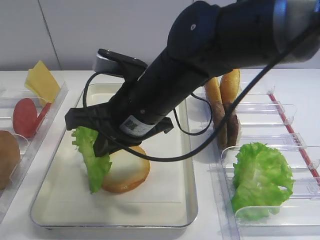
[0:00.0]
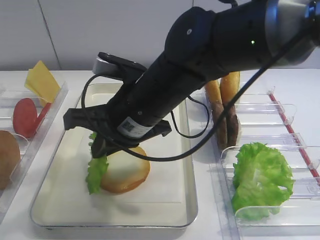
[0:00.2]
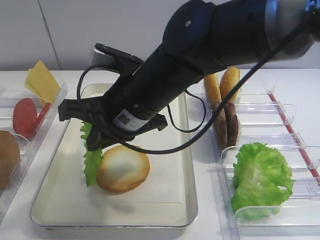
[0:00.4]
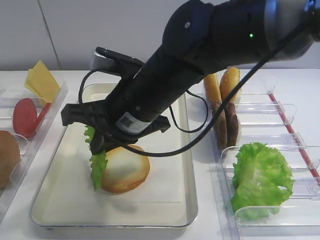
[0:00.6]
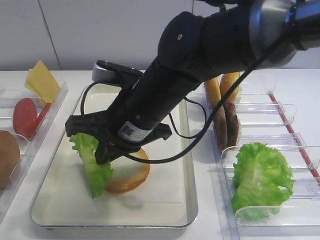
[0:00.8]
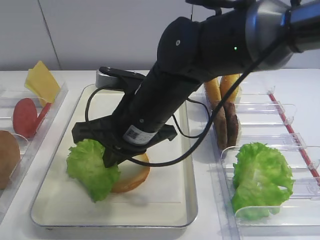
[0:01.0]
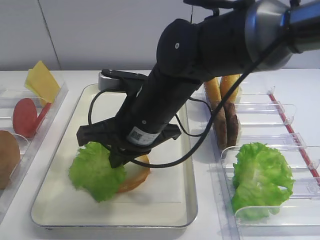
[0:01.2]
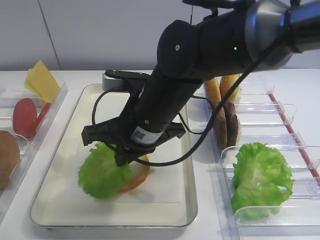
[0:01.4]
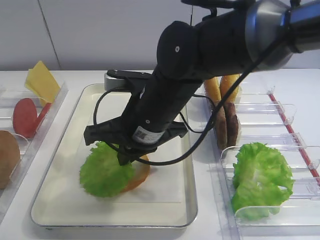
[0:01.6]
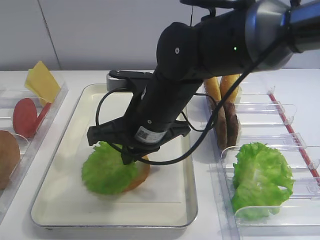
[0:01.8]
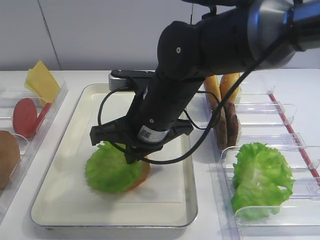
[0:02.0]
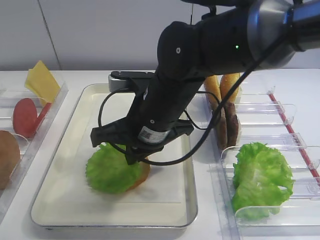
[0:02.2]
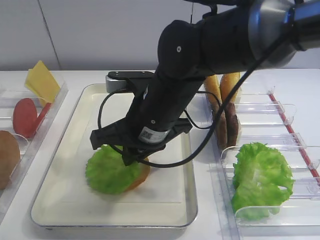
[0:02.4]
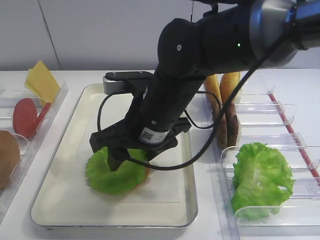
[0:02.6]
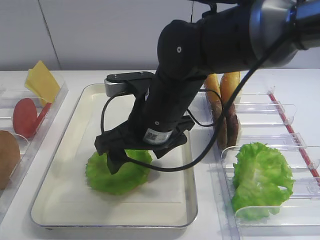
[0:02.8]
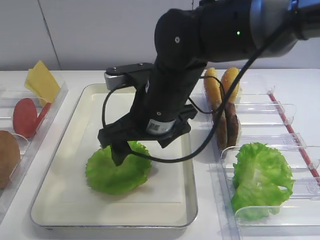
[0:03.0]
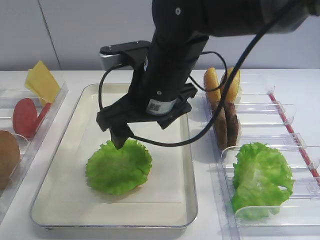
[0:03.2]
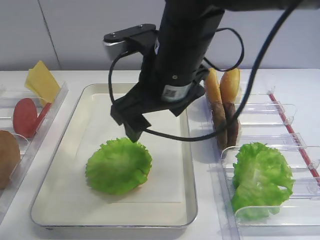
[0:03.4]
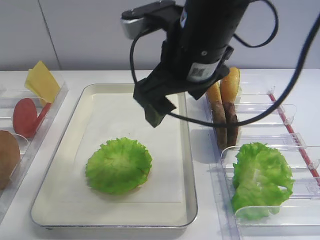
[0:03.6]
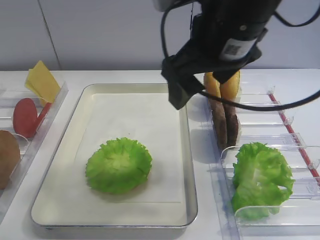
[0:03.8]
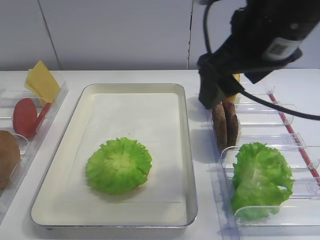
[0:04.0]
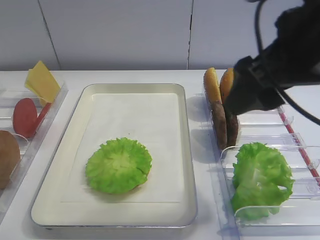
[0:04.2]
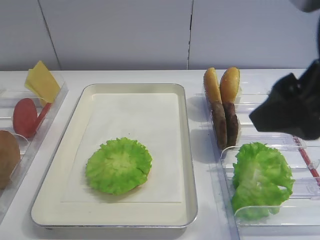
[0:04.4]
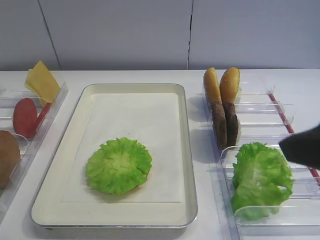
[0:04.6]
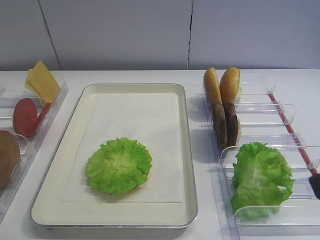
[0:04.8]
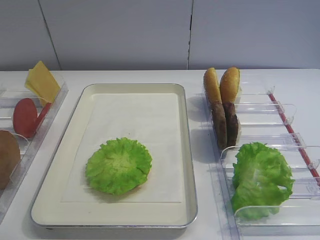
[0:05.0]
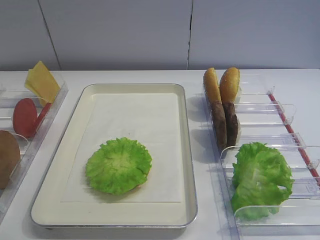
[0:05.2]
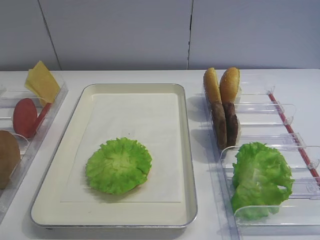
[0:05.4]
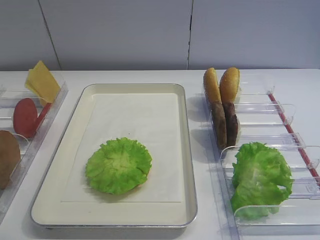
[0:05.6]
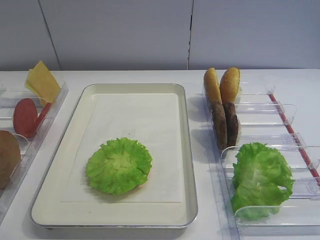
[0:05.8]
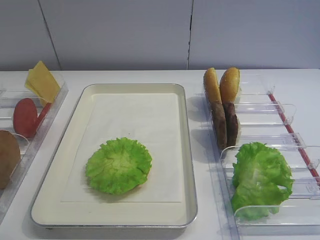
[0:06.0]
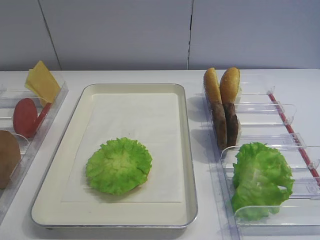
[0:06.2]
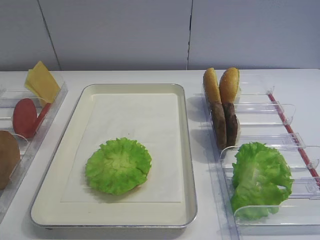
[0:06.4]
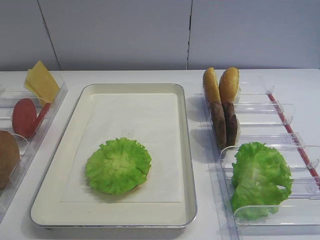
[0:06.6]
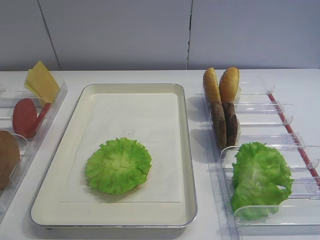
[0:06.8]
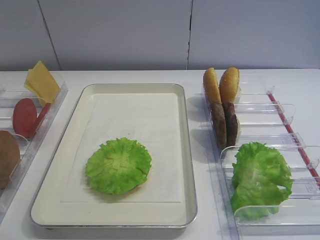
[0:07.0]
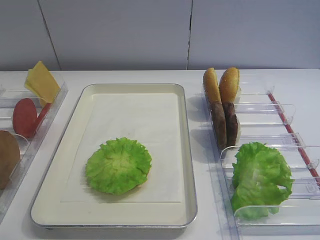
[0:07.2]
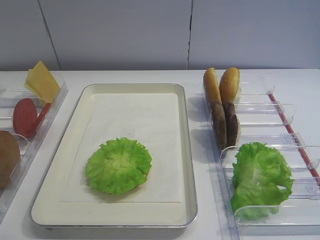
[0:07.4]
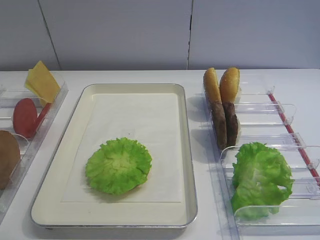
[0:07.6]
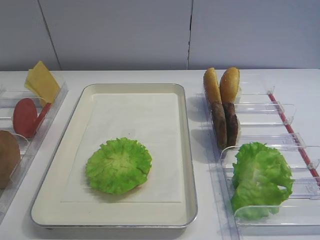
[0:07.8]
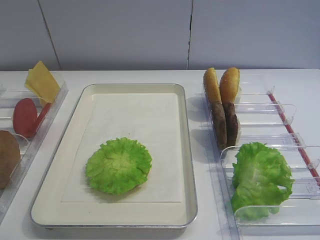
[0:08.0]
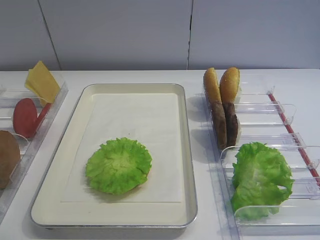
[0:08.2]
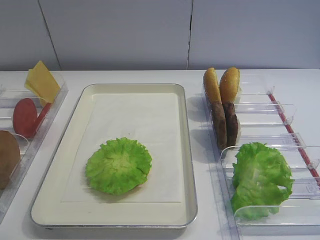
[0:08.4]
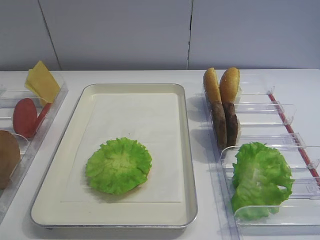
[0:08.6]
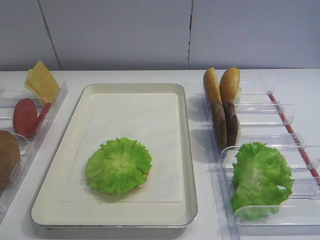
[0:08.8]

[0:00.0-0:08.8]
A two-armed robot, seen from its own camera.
Step, 0:00.0 to 0:03.4: Place the lettuce leaf on the bread slice with the right gripper.
0:00.0 to 0:01.4: The grippers make only small movements.
0:01.4 to 0:03.0: The right gripper opens up.
0:03.0 to 0:04.4: The right gripper heads to the right, upward and backward, covering roughly 25 cm.
0:04.4 to 0:05.8: The right gripper is displaced backward, to the right and downward by some 20 cm.
0:07.4 to 0:08.8: The two grippers keep their place.

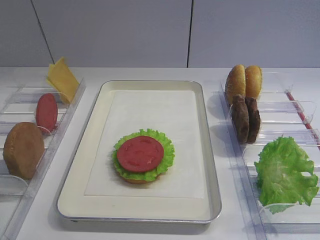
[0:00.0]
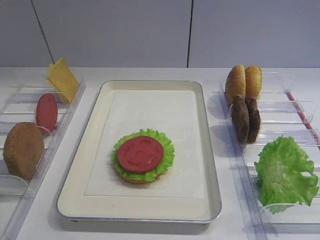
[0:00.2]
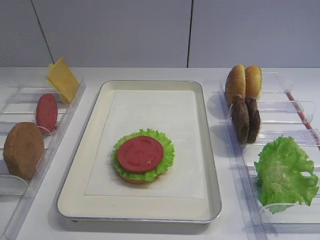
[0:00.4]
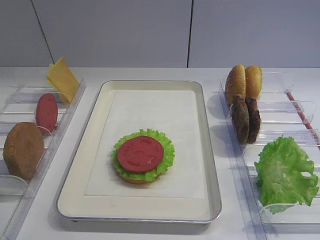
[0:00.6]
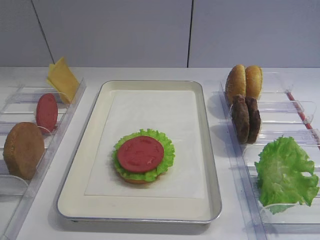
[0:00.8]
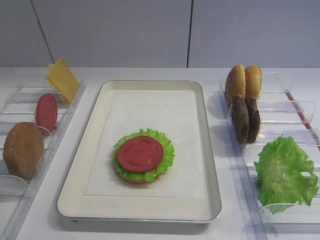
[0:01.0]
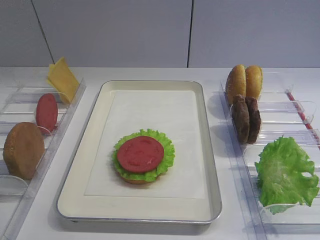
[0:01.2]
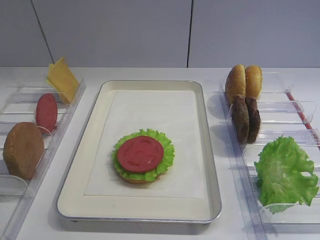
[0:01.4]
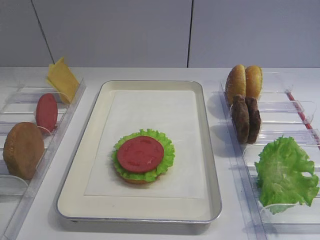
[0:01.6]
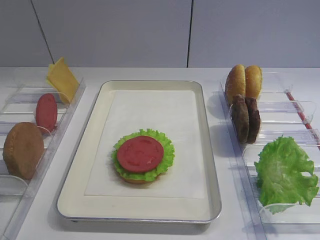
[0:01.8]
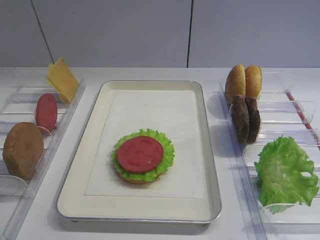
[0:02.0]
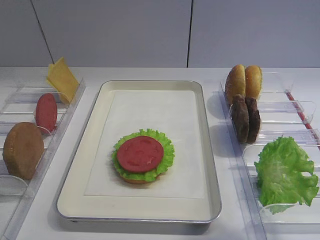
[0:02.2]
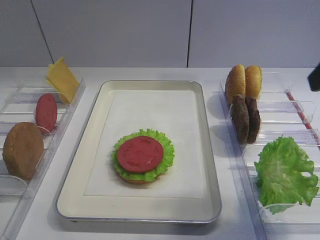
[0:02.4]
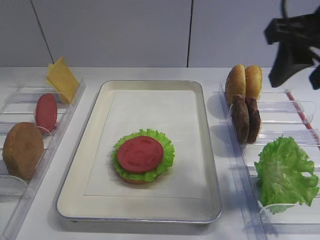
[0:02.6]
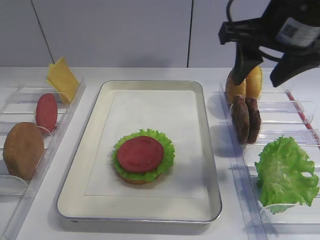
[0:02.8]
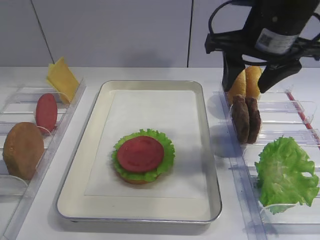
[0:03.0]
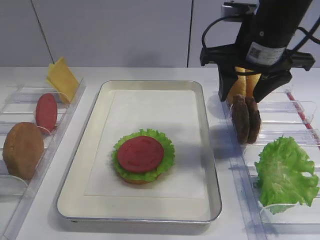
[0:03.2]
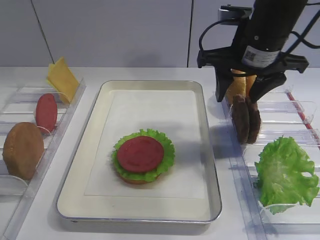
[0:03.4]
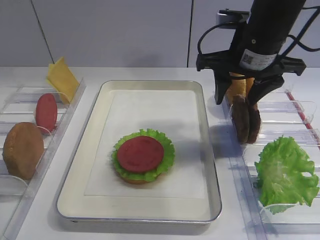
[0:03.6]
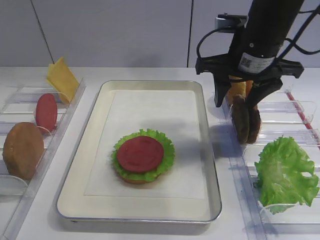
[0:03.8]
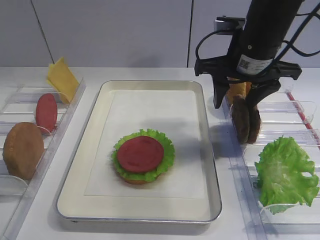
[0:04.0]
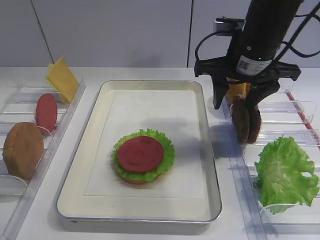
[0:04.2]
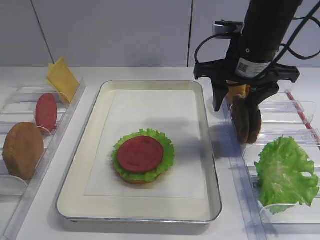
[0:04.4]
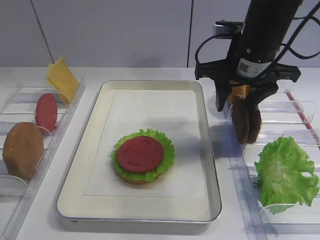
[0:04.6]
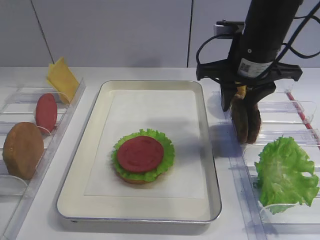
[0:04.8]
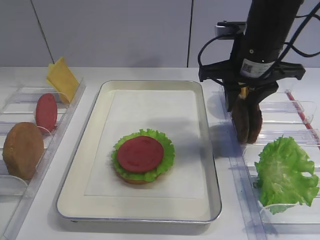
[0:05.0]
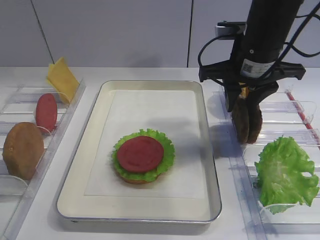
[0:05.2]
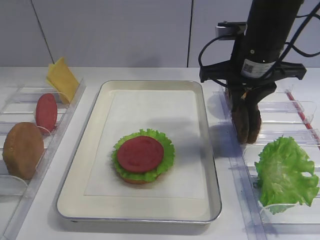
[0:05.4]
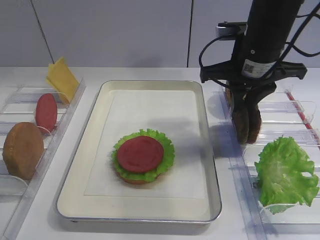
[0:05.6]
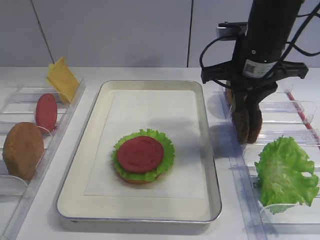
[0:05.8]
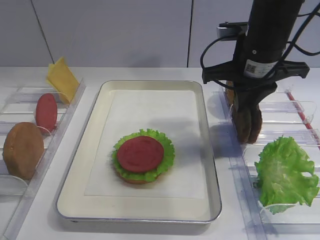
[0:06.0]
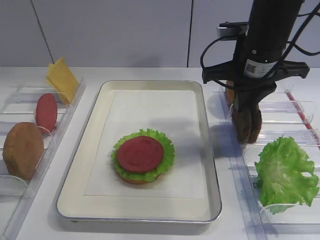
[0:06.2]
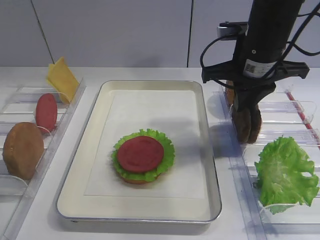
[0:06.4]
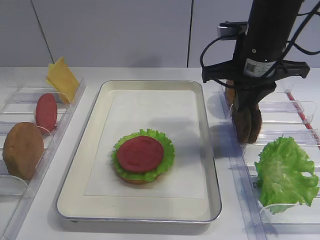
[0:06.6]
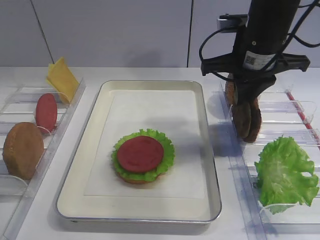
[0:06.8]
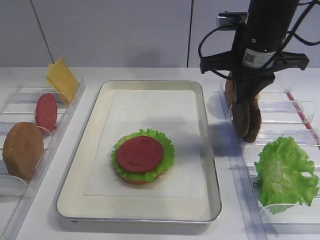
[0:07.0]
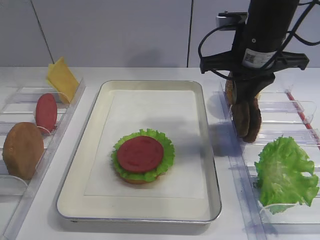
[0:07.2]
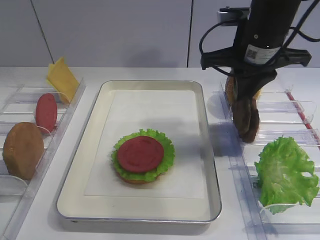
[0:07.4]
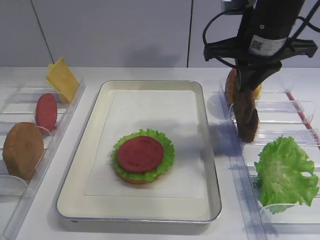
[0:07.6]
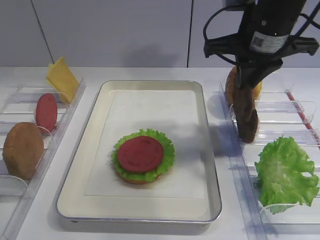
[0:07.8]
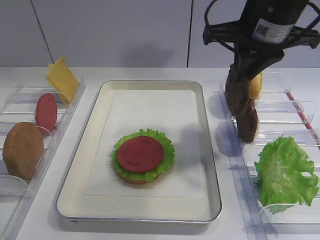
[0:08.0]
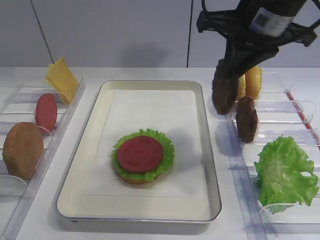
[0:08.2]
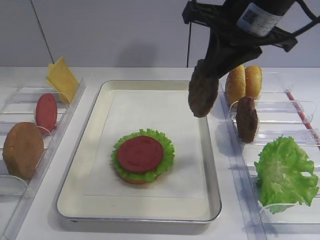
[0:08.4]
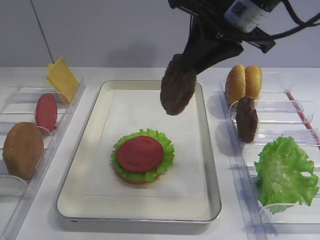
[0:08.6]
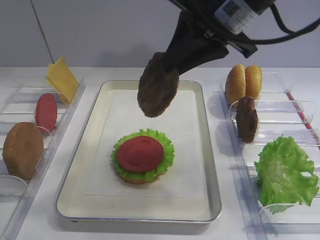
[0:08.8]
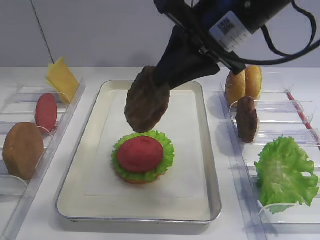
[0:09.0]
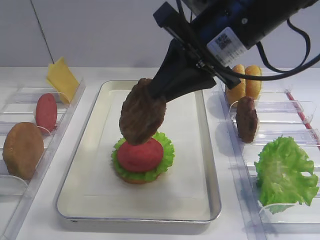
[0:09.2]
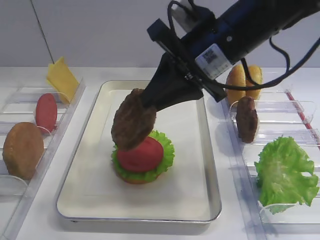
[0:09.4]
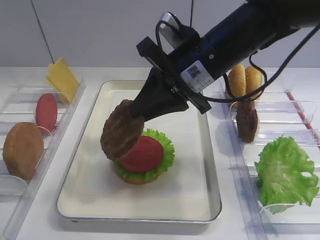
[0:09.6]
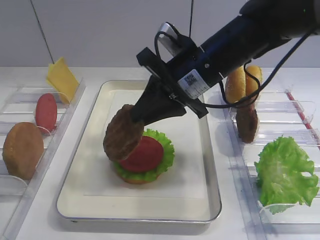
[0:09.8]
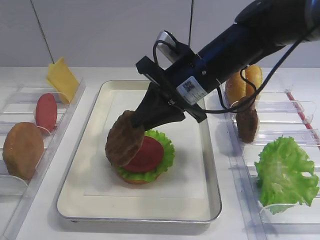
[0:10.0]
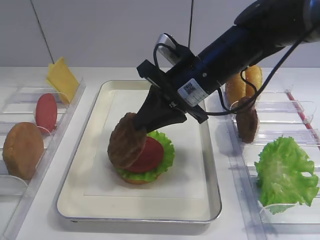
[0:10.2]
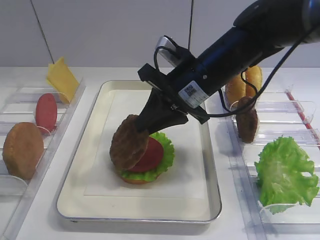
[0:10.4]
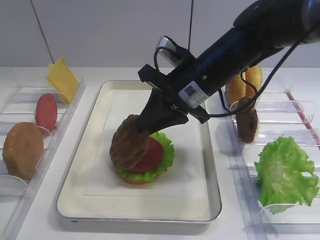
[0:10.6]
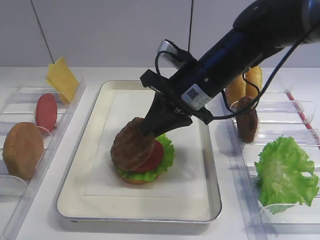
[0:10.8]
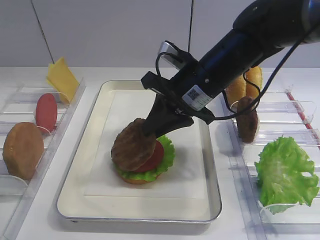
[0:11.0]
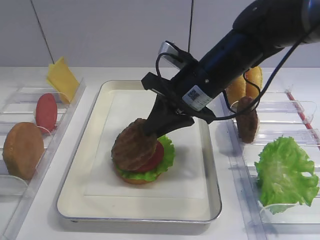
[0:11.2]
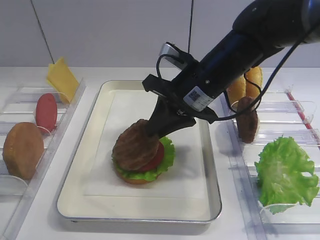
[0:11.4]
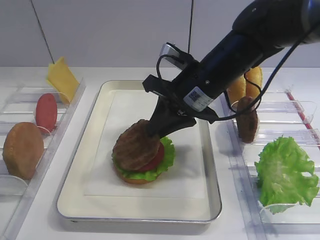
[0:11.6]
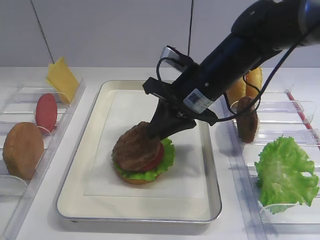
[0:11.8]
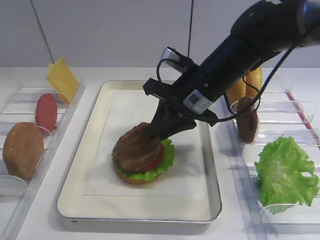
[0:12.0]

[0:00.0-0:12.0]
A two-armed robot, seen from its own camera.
Step, 0:00.0 to 0:07.4: Pick up the cutlet with the right gripper.
0:01.6 to 0:03.0: The right gripper travels forward by about 30 cm.
0:03.0 to 0:04.4: The right gripper travels downward by approximately 5 cm.
0:04.4 to 0:06.0: The right gripper closes up.
0:06.0 to 0:07.6: The grippers move only a little.
0:07.6 to 0:09.0: The right gripper travels to the left by some 5 cm.
0:09.0 to 0:10.4: The right gripper is displaced downward by approximately 10 cm.
0:10.4 to 0:12.0: The grippers move only a little.

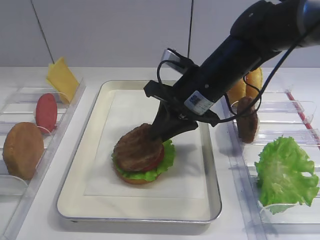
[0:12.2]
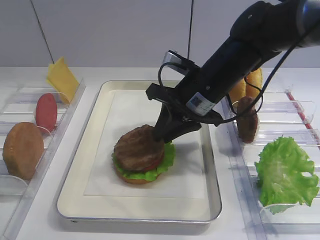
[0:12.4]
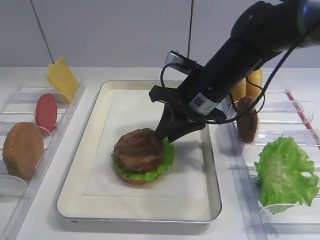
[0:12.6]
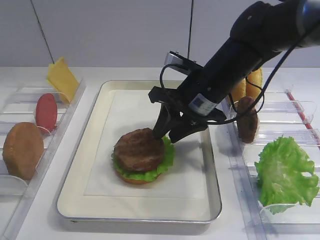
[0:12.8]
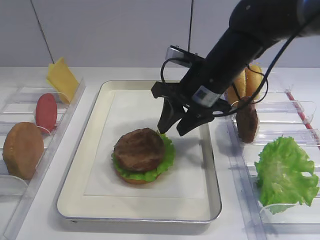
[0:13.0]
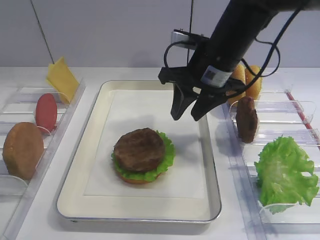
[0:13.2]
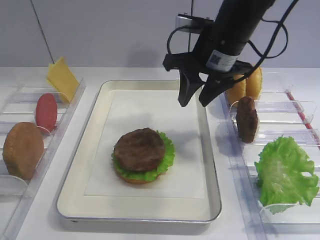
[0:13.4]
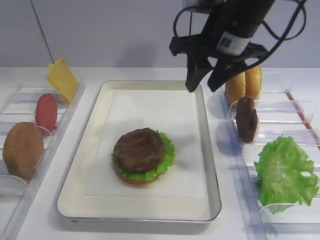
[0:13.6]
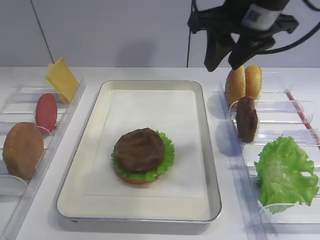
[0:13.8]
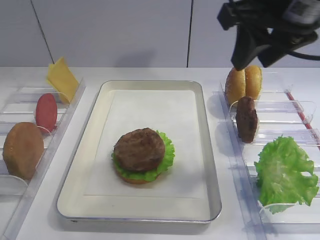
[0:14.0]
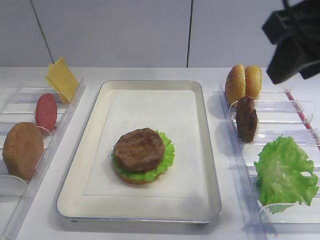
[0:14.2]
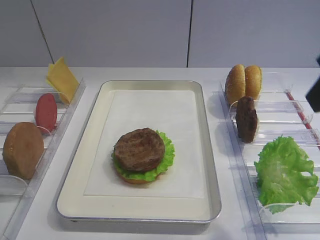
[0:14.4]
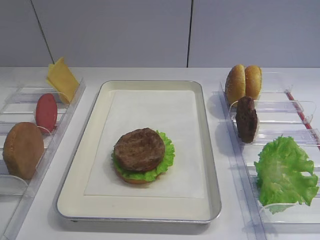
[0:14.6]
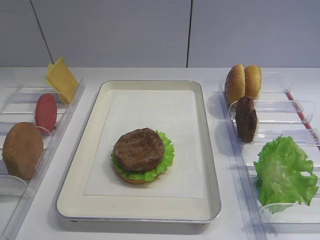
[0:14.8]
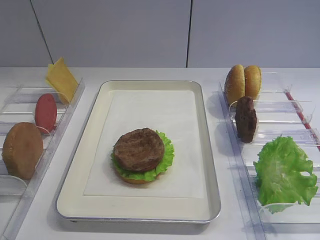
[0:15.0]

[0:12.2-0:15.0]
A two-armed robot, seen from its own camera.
0:12.2 to 0:13.6: The right gripper is displaced upward by about 10 cm, and opens up.
0:13.6 to 0:15.0: The right gripper moves backward and to the right, approximately 35 cm.
